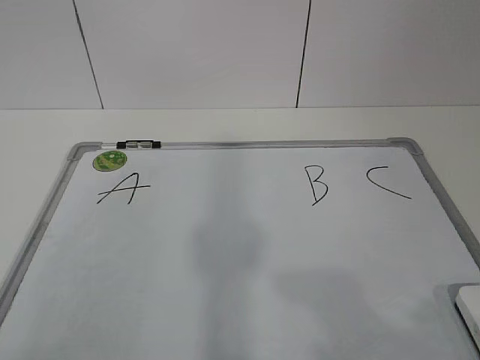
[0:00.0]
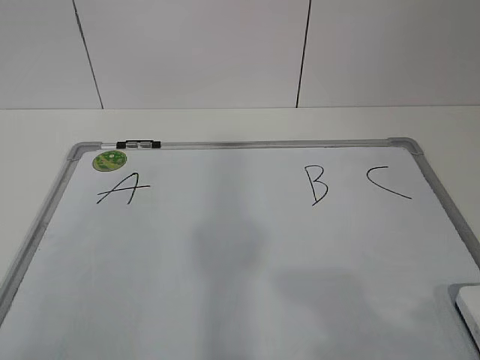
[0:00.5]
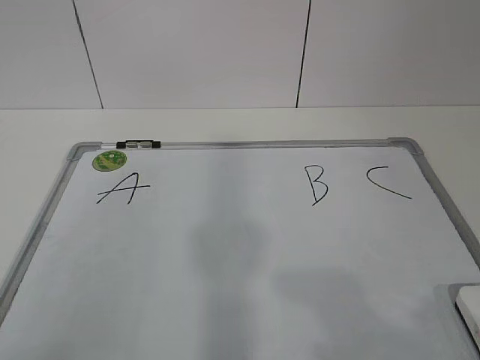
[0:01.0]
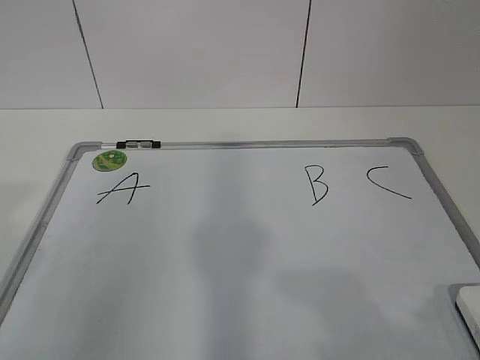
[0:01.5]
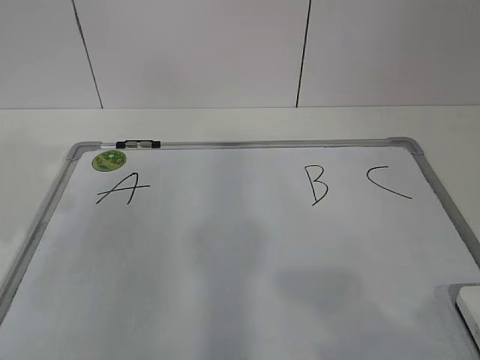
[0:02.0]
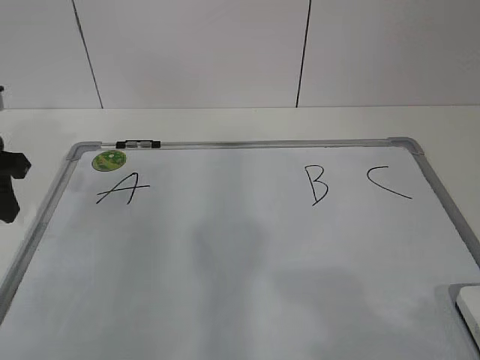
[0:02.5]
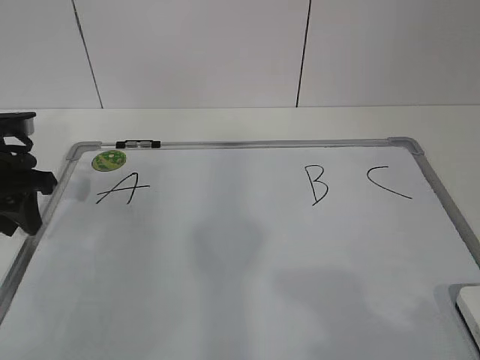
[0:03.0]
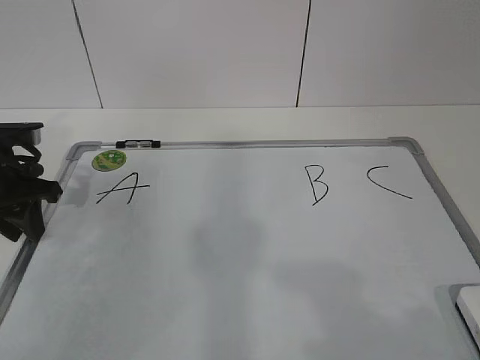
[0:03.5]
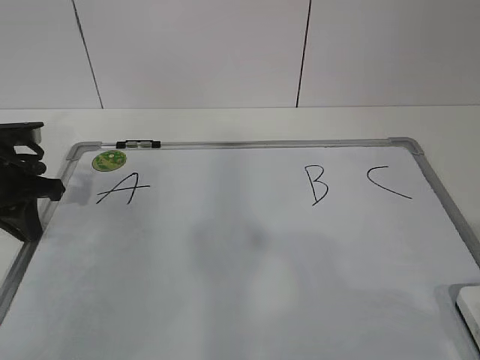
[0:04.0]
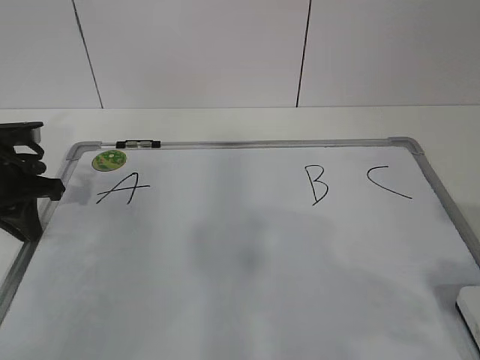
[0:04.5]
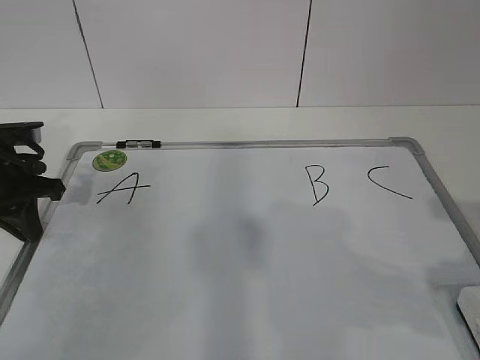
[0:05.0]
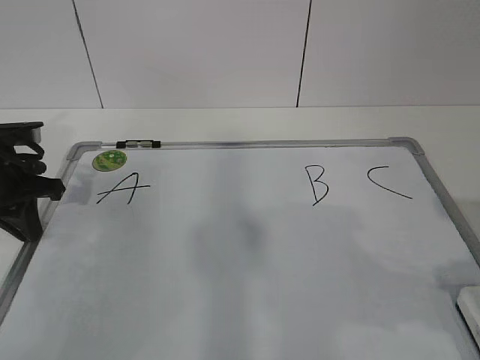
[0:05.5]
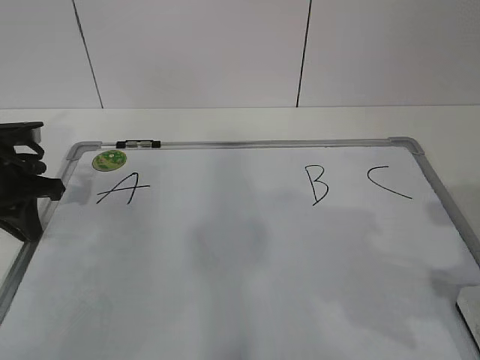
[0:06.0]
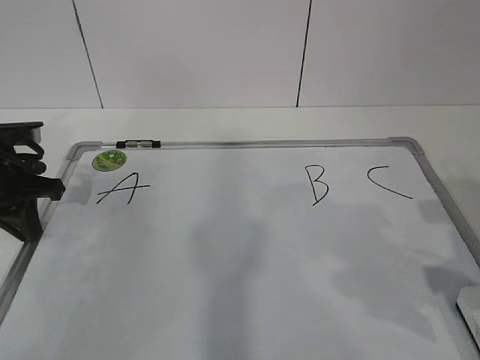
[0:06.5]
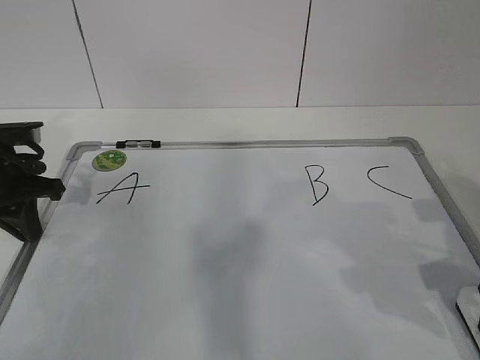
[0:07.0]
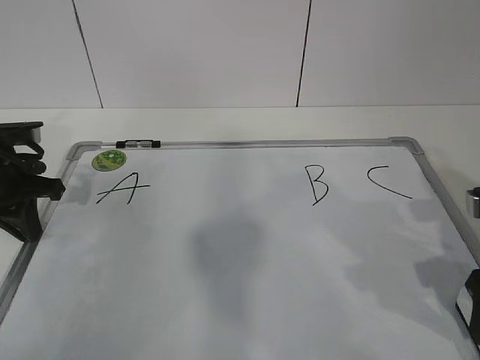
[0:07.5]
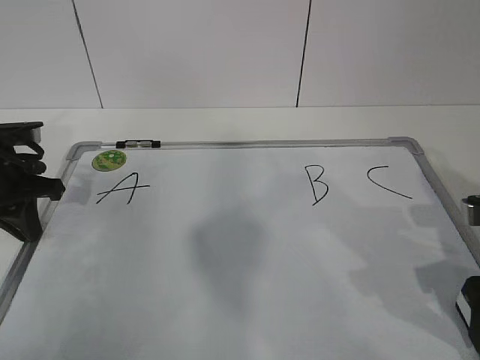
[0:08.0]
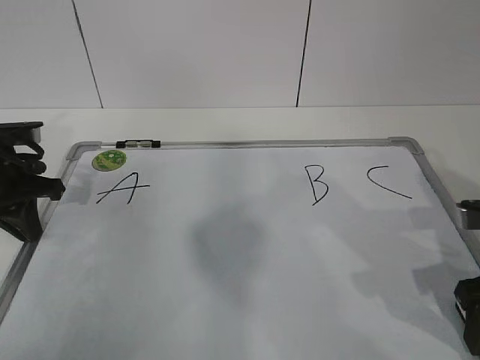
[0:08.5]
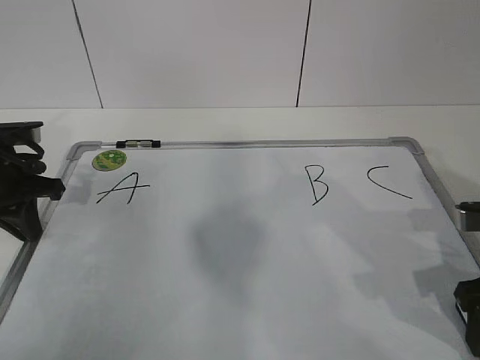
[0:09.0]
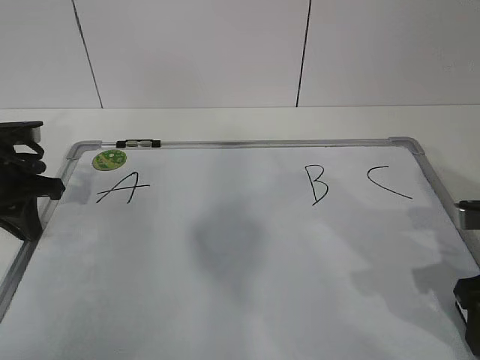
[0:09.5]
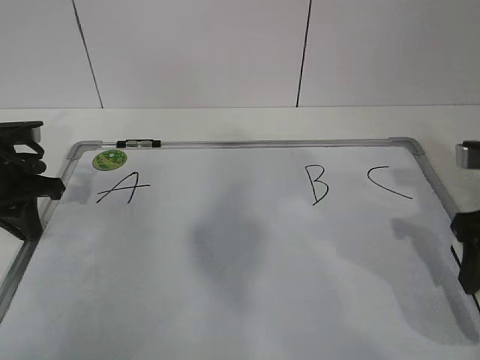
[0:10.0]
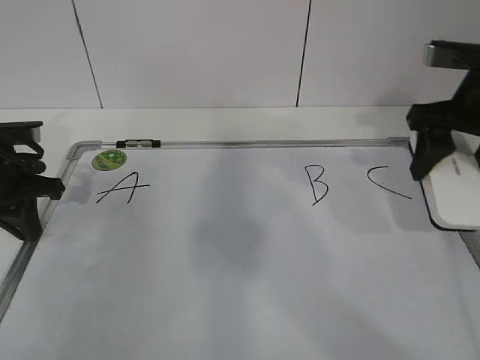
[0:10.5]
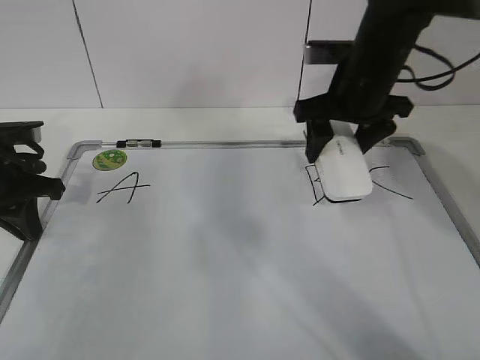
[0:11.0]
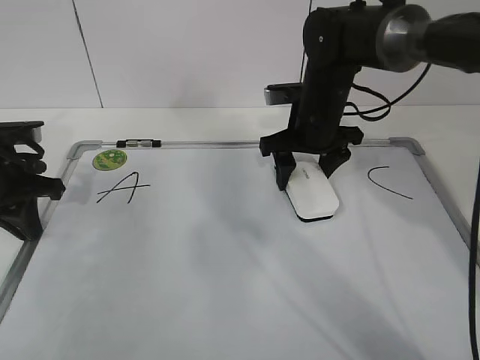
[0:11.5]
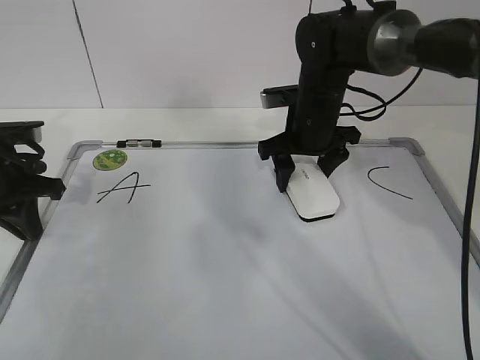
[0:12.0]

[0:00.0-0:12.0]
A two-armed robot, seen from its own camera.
Task of the whole recording: pick up the eraser on the blackboard and erase the letter "B".
Step, 0:00.0 to 0:03.0: Hold the drawing board steady with your left hand.
0:02.0 to 0:04.0: The left gripper shifts approximately 15 cm forward and downward, and closes.
0:04.0 to 0:06.0: The right gripper is displaced forward by roughly 10 cm, and opens.
0:06.0 to 0:08.0: The right gripper goes about 10 cm forward and downward.
0:08.0 to 0:10.0: The right gripper ends up approximately 5 cm from where it was, and closes.
0:10.0 to 0:12.0: The right gripper heads forward and to the left, covering about 25 cm.

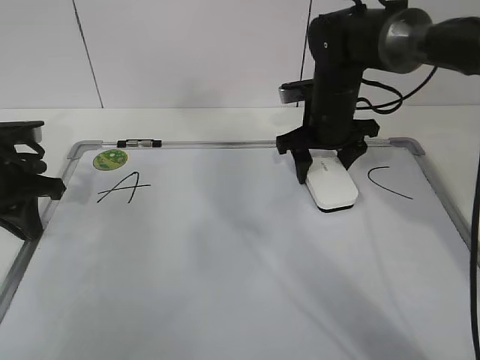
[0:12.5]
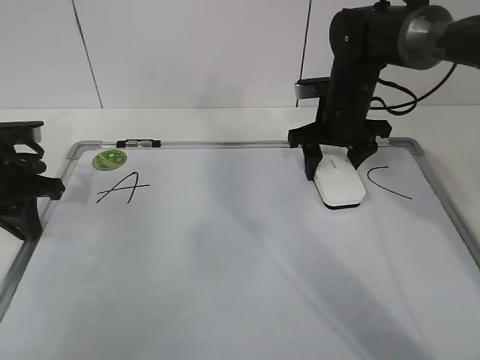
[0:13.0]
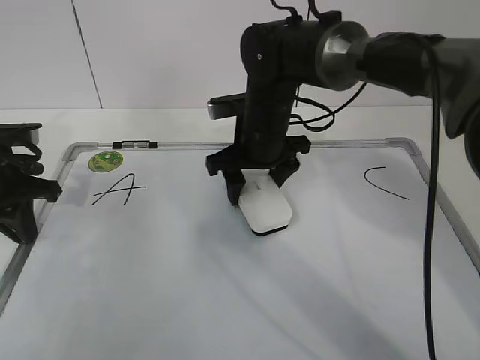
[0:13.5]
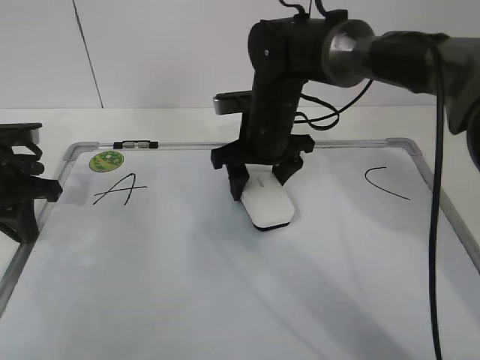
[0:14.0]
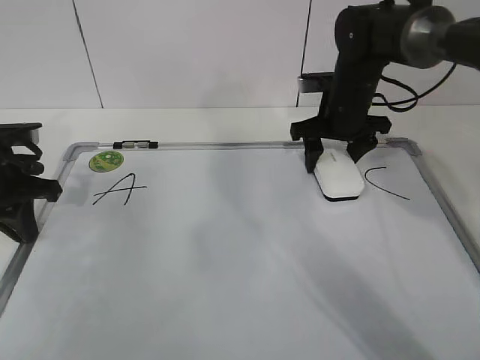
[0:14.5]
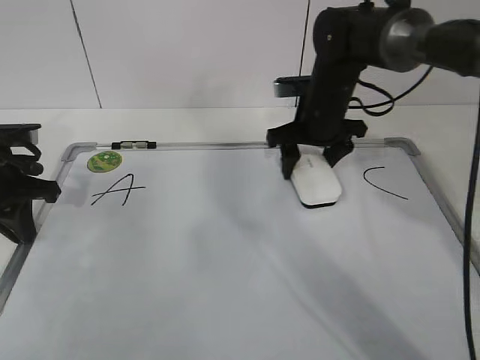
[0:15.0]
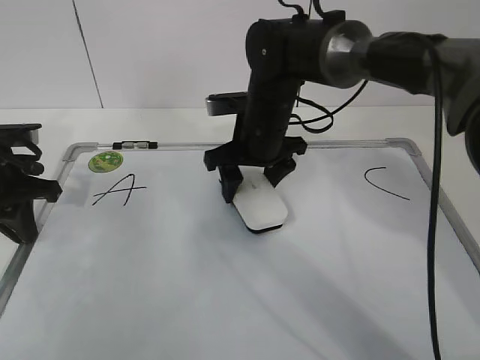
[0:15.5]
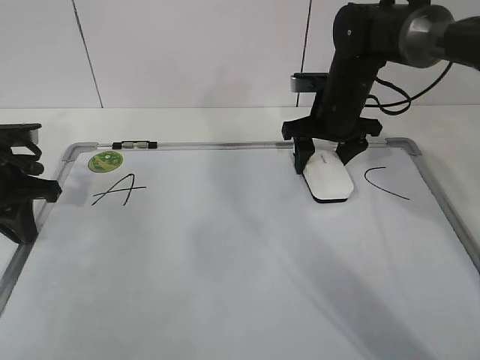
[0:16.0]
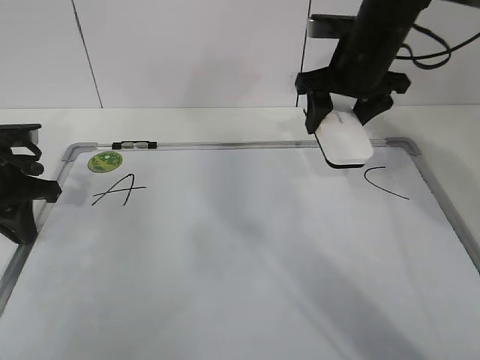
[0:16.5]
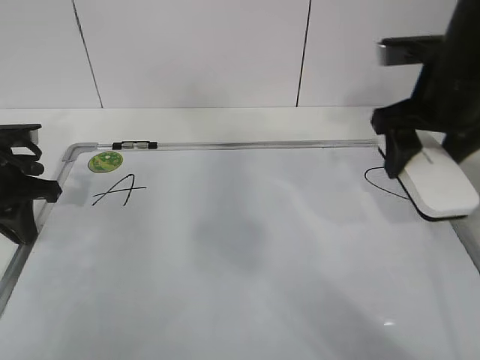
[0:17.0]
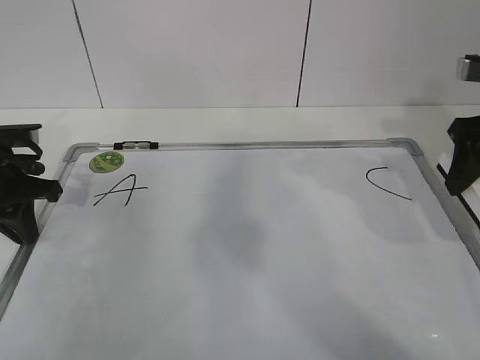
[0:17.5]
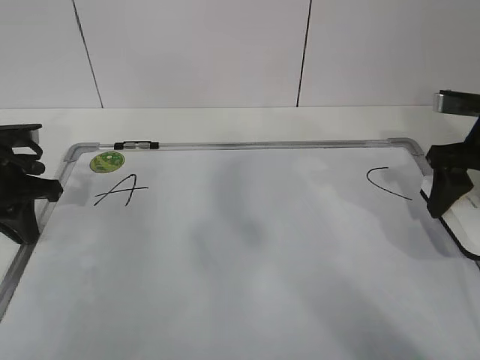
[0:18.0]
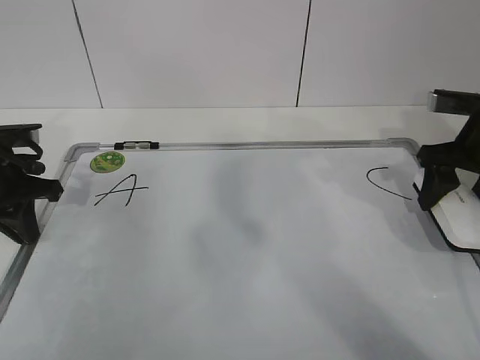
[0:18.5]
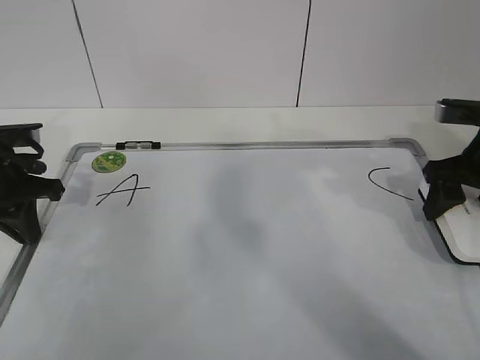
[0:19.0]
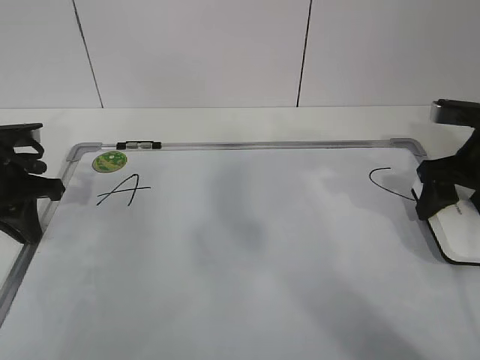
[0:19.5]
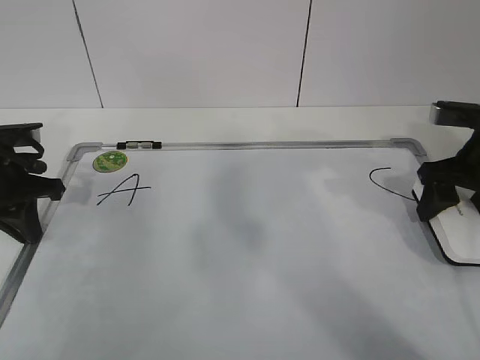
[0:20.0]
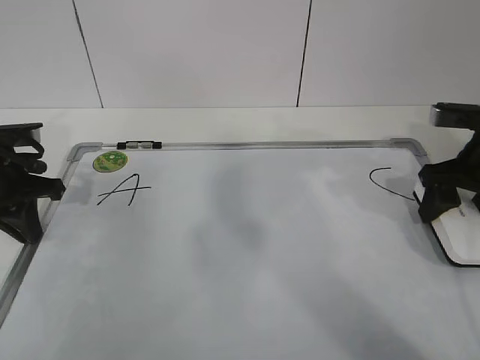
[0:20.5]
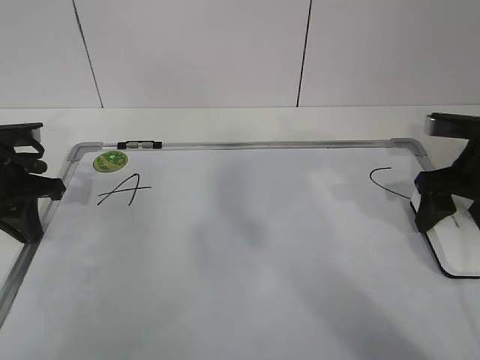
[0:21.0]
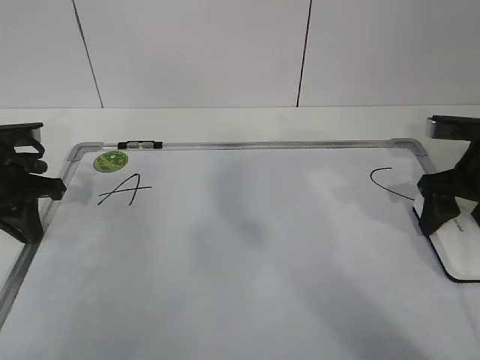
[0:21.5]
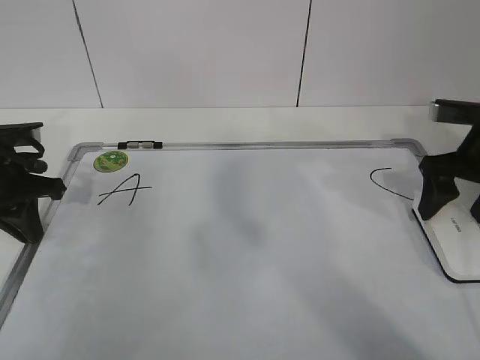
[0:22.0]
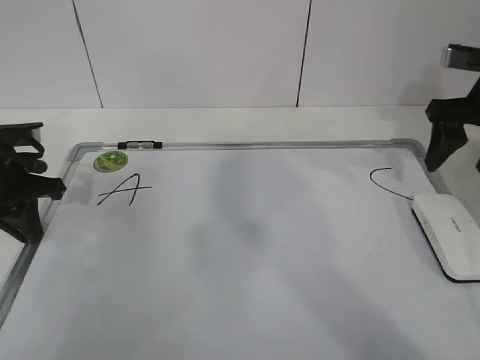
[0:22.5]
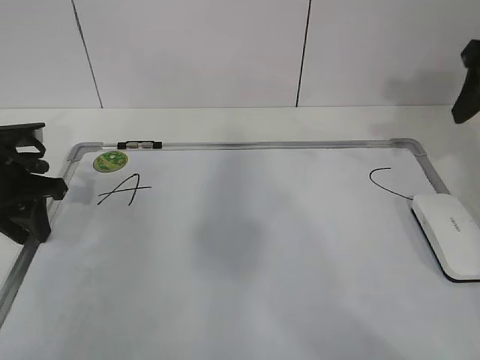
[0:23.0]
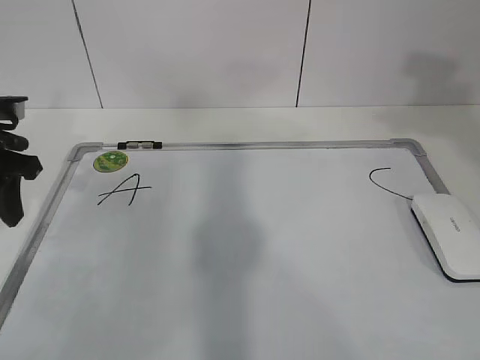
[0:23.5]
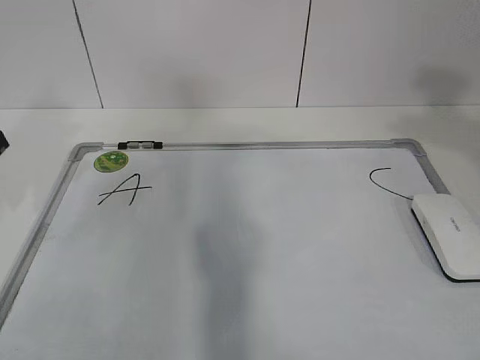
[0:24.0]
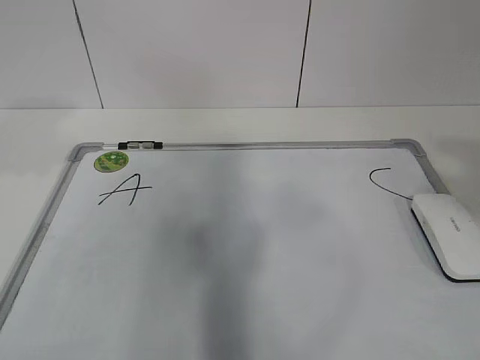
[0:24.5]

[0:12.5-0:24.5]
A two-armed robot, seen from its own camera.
Task of the whole recording: pick up the eraser on the blackboard and erase the letter "B".
Step, 0:13.5 to 0:18.0: Put down the eraser with your right hand.
0:12.5 to 0:14.5: The right gripper reaches roughly 10 cm to the left, then returns.
0:14.5 to 0:16.5: The right gripper shifts some 10 cm upward, and goes to the left and returns, some 10 cm each way.
0:16.5 to 0:18.5: The right gripper goes about 15 cm to the right and backward.
0:18.5 to 0:20.5: There are only small adjustments of the grippers.
0:20.5 to 0:22.5: The right gripper moves upward, some 5 cm, and opens its fingers.
0:22.5 to 0:24.5: The right gripper goes about 35 cm backward and upward, and closes, while the left gripper moves upward and backward, roughly 25 cm, and opens.

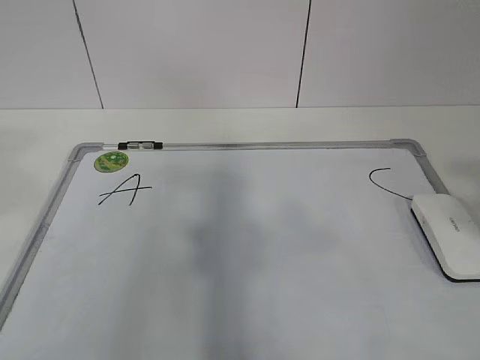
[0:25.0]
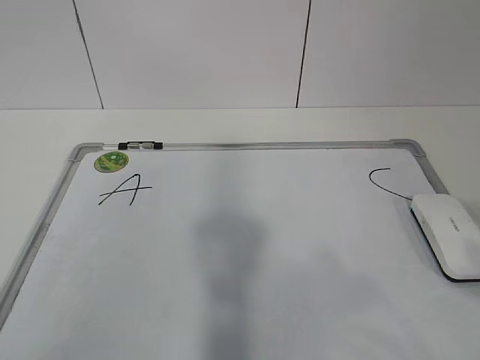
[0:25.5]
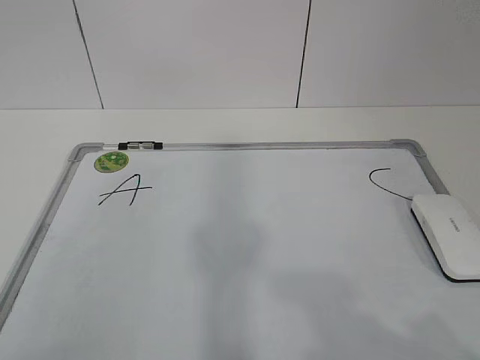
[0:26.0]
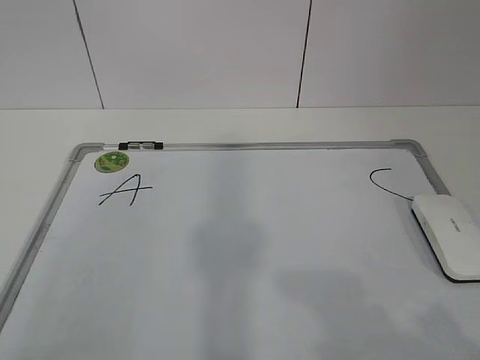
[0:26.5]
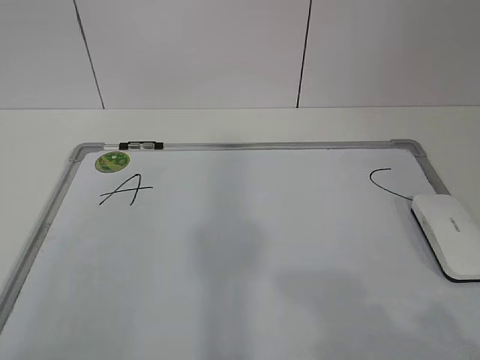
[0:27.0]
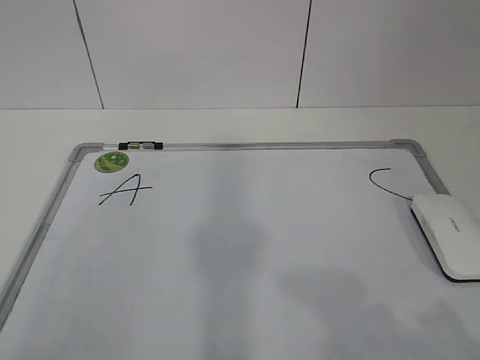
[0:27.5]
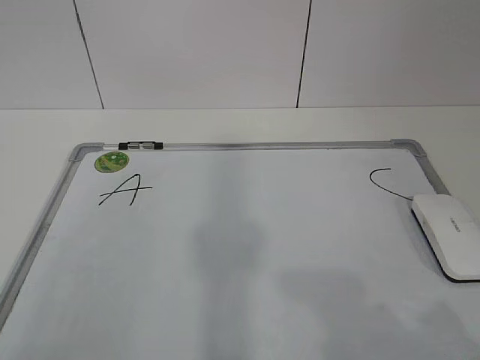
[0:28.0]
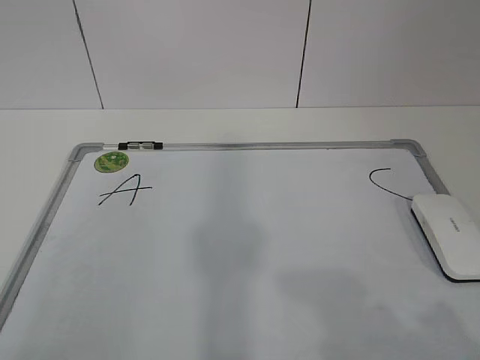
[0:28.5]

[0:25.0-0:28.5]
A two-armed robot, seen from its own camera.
Task of the whole recording: pick up the eraser on the blackboard and erase the letter "B".
0:25.0 to 0:27.0: The right gripper goes some 15 cm downward.
0:27.0 to 0:28.5: Both grippers stay about where they are.
